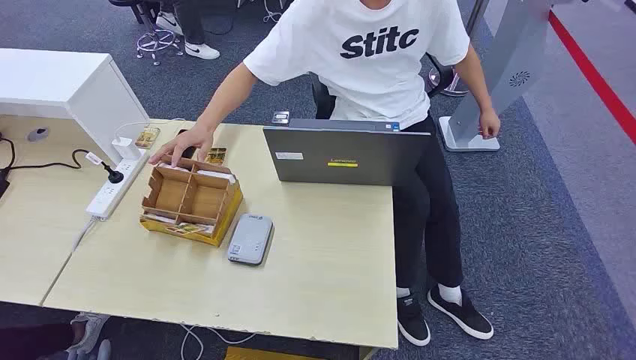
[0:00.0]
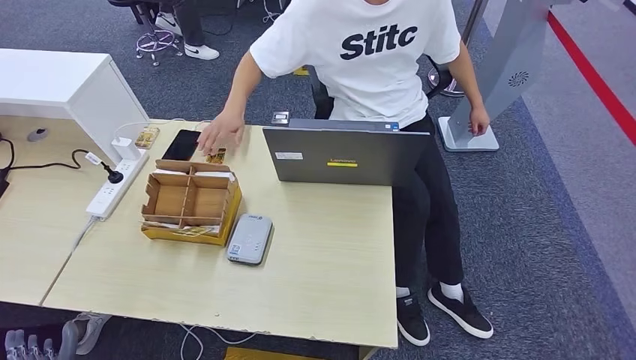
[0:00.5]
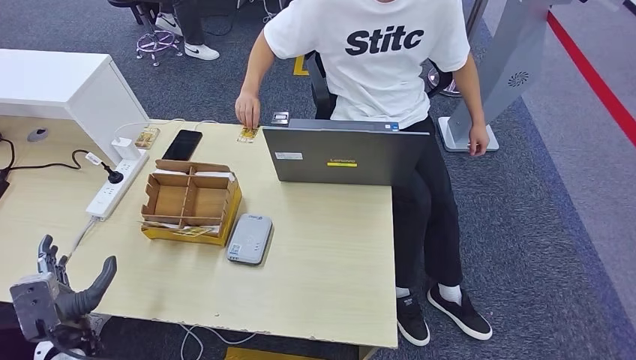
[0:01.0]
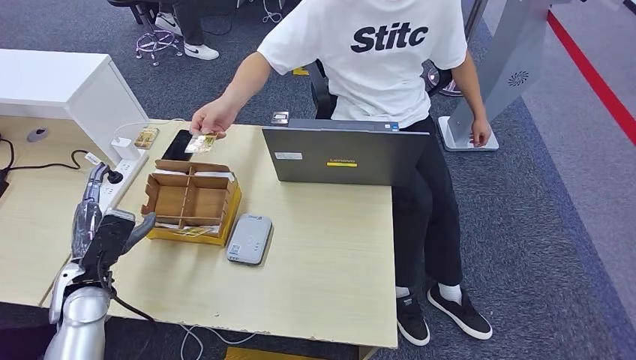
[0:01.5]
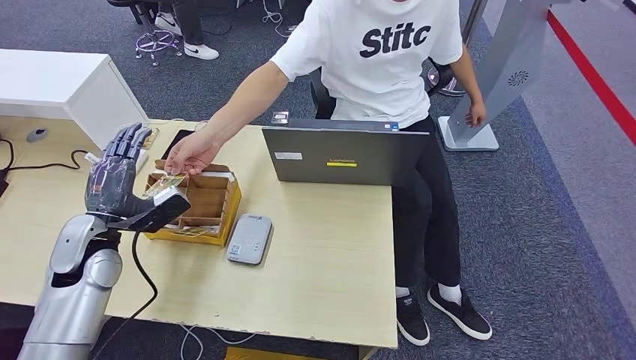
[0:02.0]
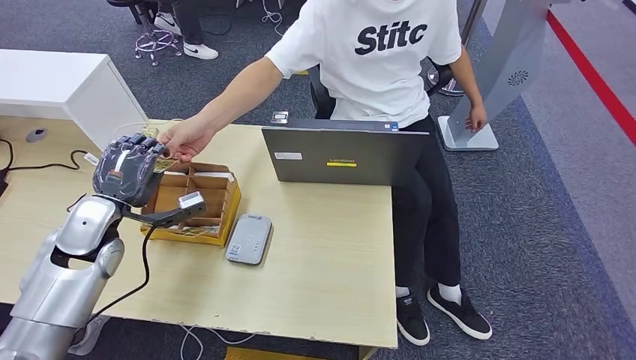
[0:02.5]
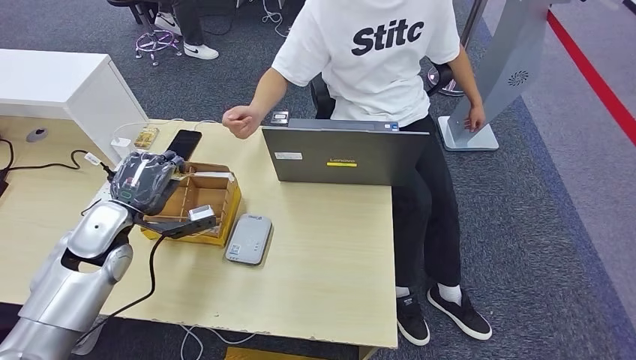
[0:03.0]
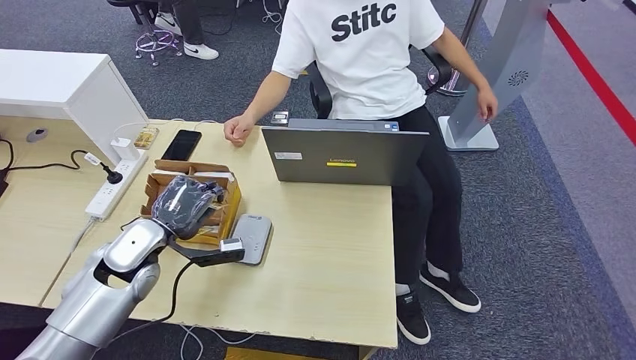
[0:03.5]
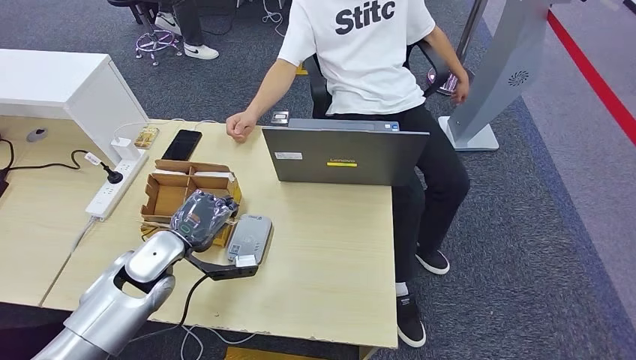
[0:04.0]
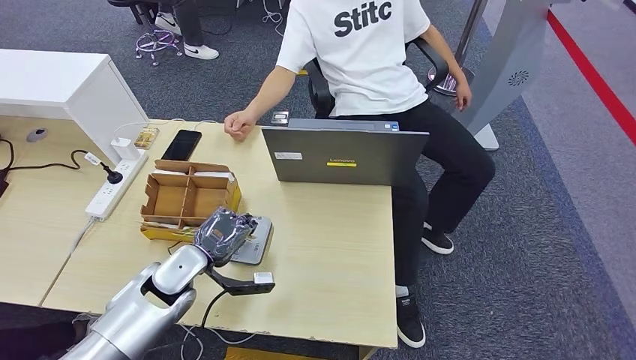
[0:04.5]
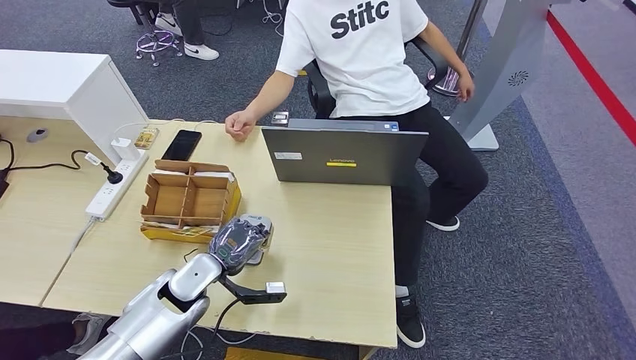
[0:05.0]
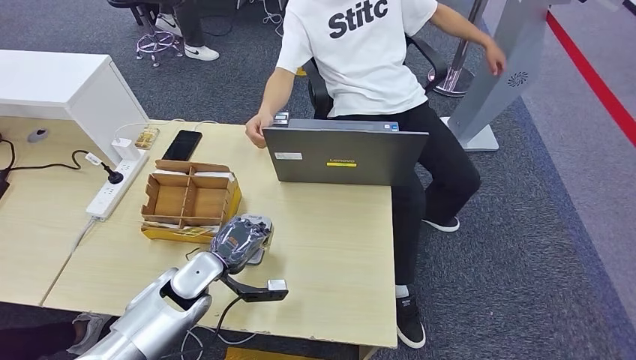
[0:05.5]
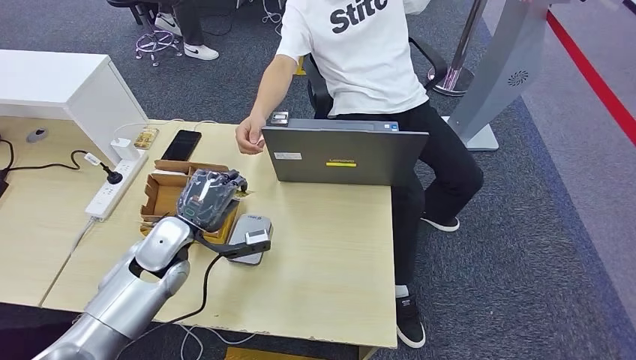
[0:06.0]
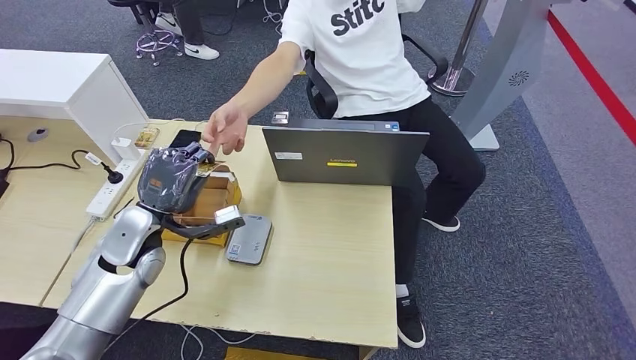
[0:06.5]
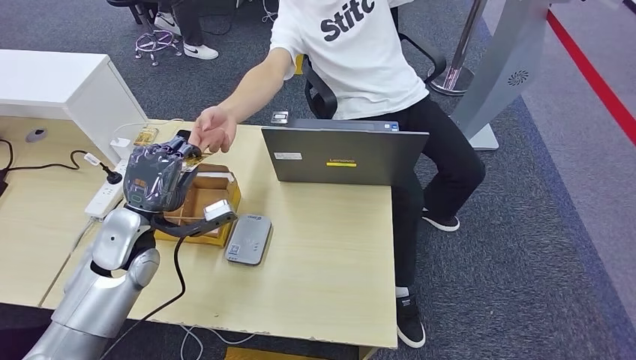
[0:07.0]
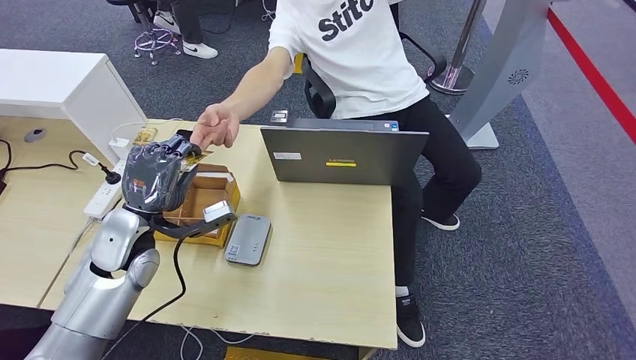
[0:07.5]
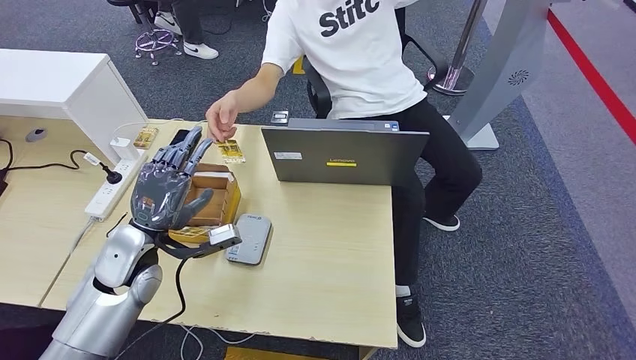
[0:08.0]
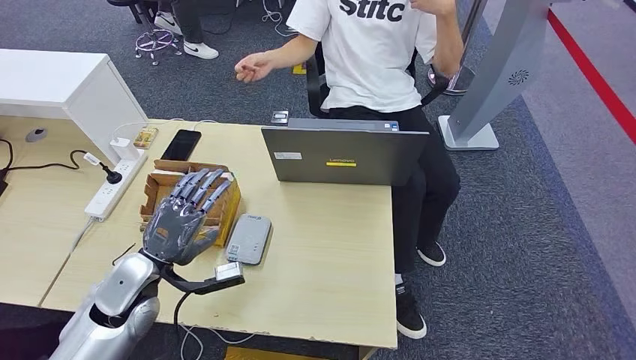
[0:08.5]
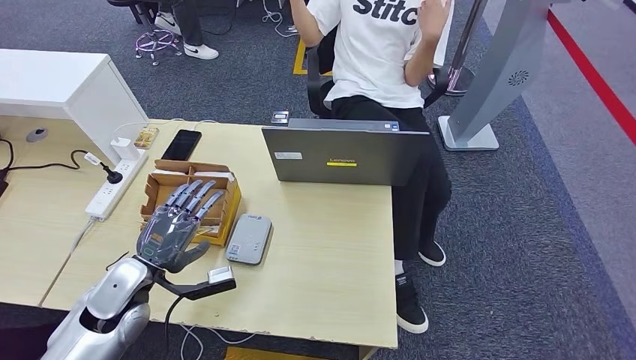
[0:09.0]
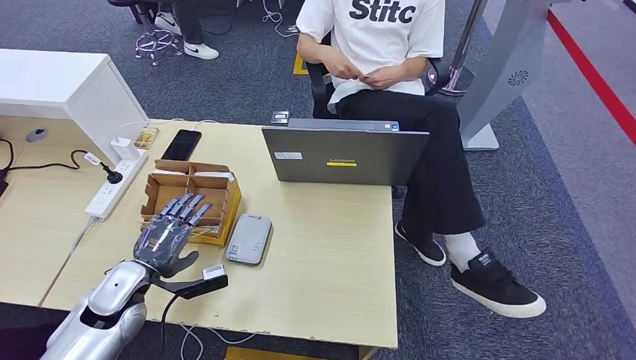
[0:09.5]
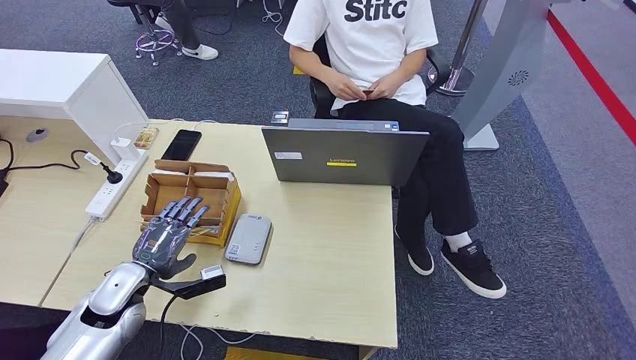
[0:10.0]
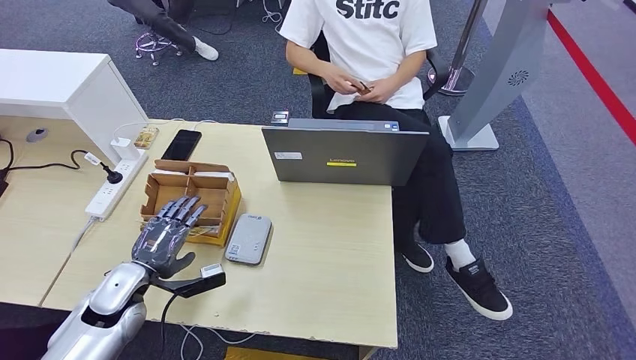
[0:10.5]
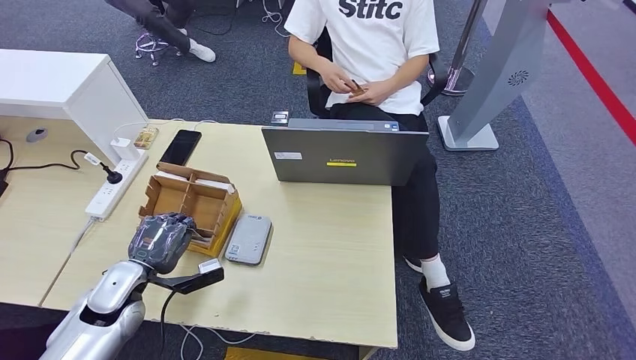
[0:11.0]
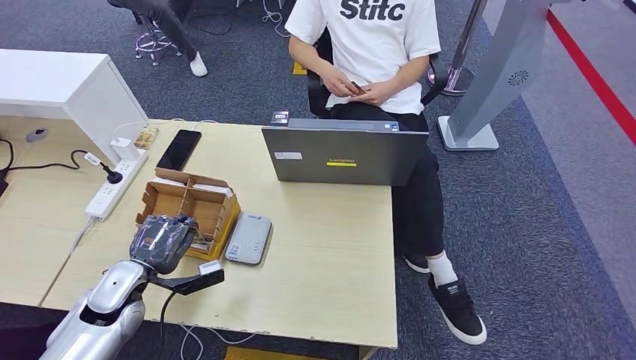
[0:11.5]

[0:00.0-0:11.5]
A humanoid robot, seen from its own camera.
Step, 0:00.0 to 0:04.0: Take the ID card from the person's hand.
Step, 0:04.5 to 0:06.0: Place the ID card on the card reader.
Step, 0:06.5 to 0:08.5: Hand the ID card to the person.
0:06.0 to 0:07.5: The left hand shifts by approximately 5 cm.
0:09.5 to 0:11.5: Both hands stay put.

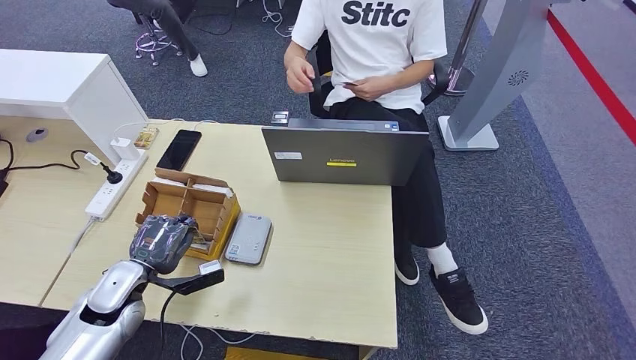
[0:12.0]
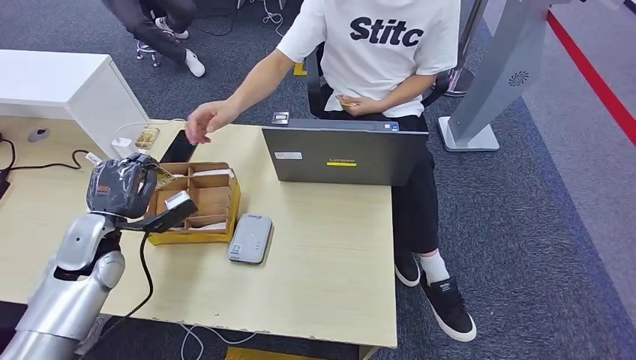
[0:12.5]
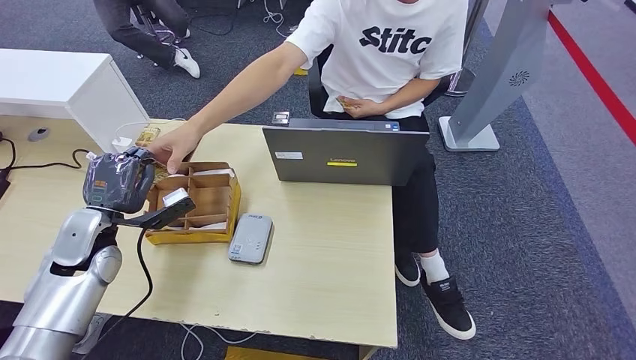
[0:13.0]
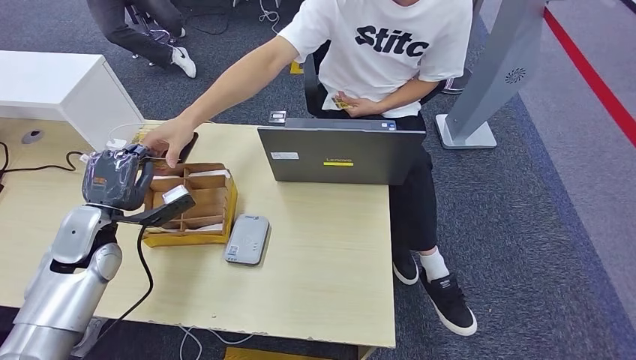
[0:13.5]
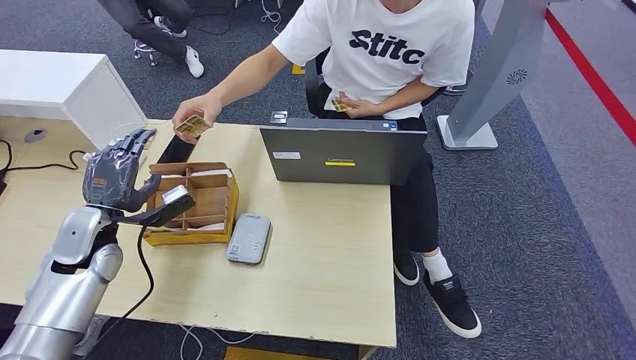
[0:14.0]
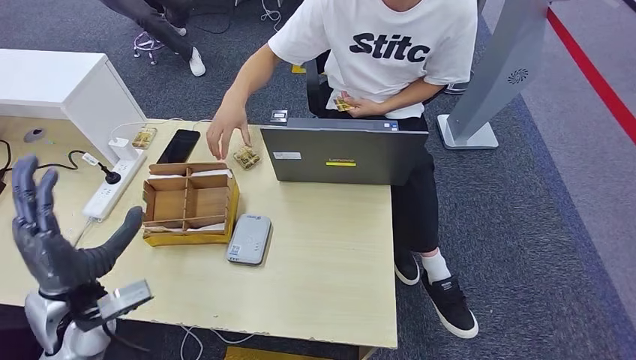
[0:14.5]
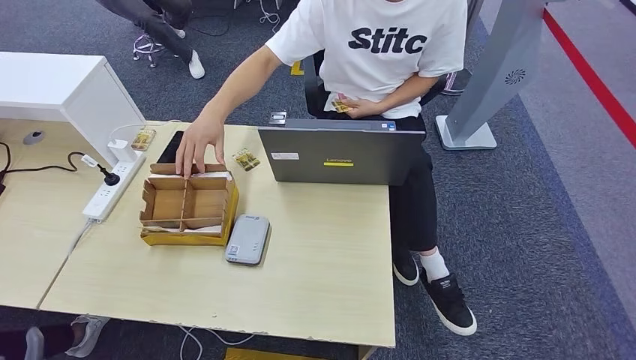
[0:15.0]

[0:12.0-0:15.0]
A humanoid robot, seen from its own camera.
Step, 0:13.5 to 0:15.0: Hand the room key to the person.
0:13.5 to 0:15.0: The left hand goes about 35 cm backward and downward.
